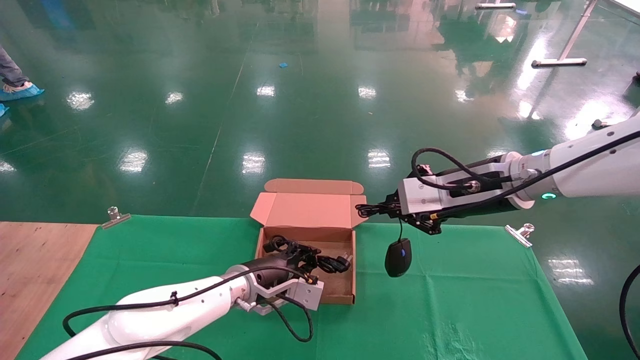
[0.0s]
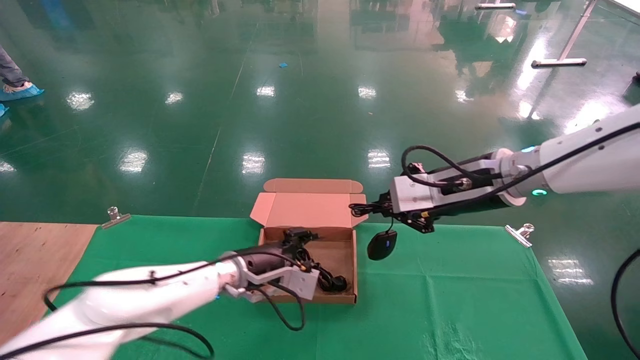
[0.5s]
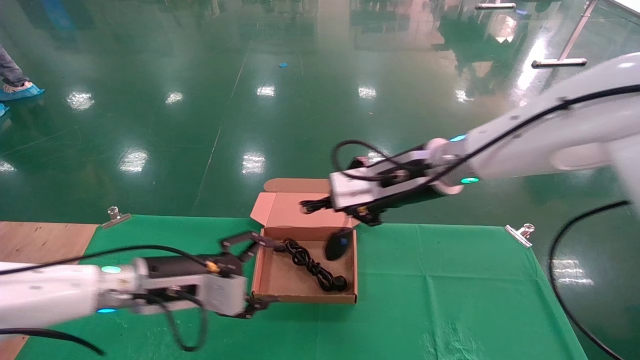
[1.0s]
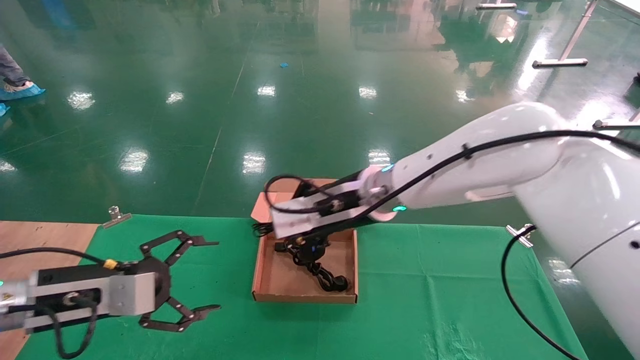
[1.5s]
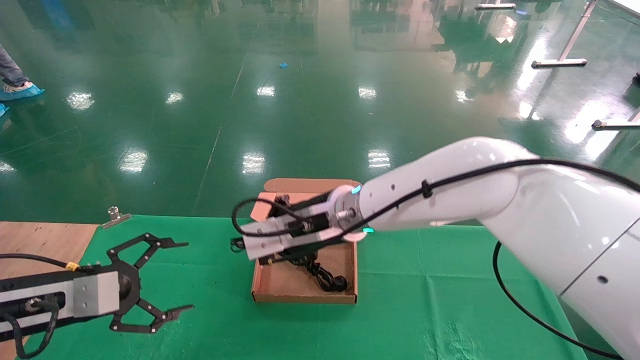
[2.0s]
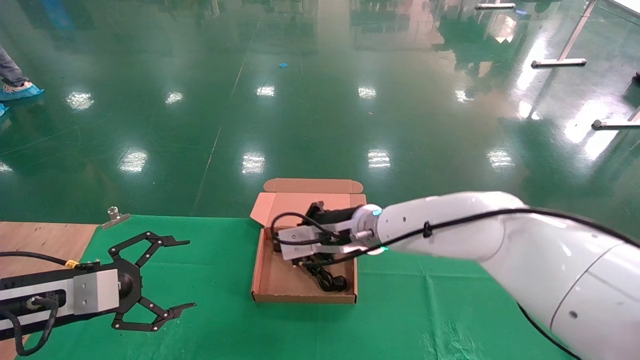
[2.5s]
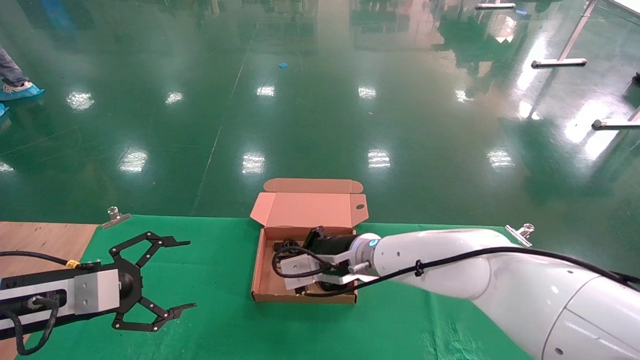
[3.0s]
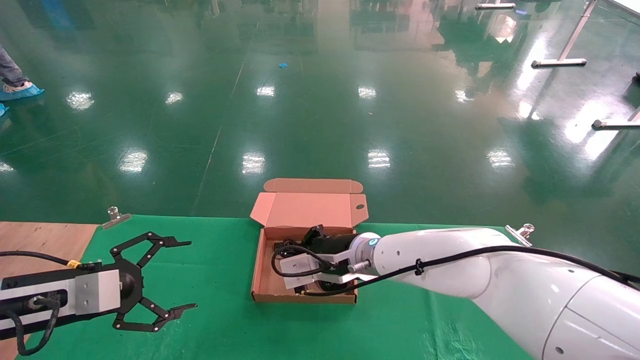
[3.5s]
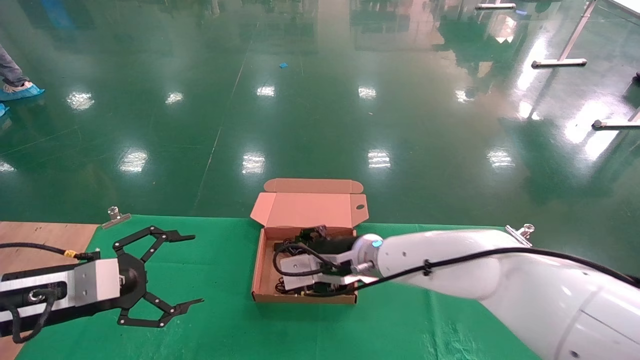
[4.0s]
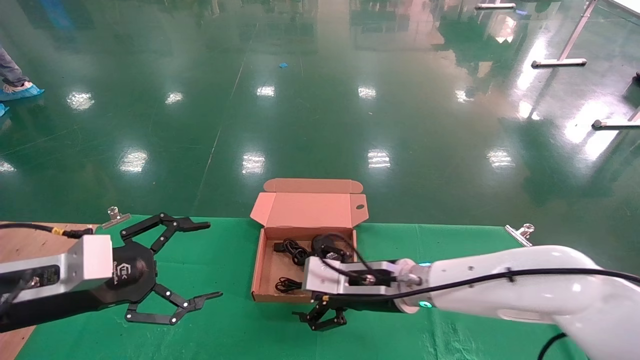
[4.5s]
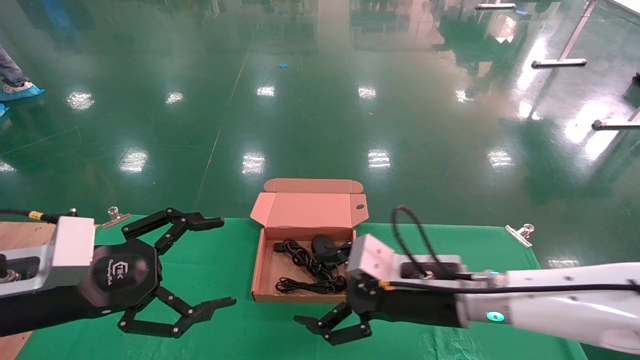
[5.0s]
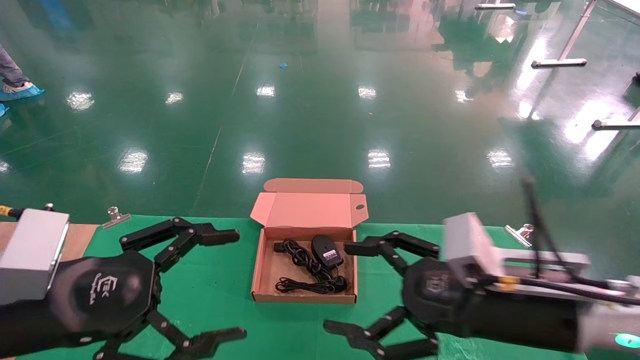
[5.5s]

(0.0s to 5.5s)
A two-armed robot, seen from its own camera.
Step, 0.0s - 3.0s: Place the mouse and power cord into the box.
0.0s - 2.0s: The right gripper heads to the left, covering roughly 20 cm; the left gripper travels to the left and backward by some 30 cm, and opens up.
2.0s - 3.5s: The right gripper goes about 10 cm downward.
3.5s - 5.5s: The left gripper heads backward, to the right and upward, covering roughly 15 cm. Meanwhile the right gripper is displaced backward and to the right by some 25 cm, and opens.

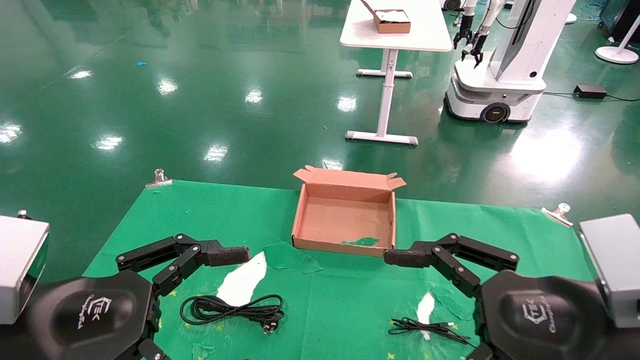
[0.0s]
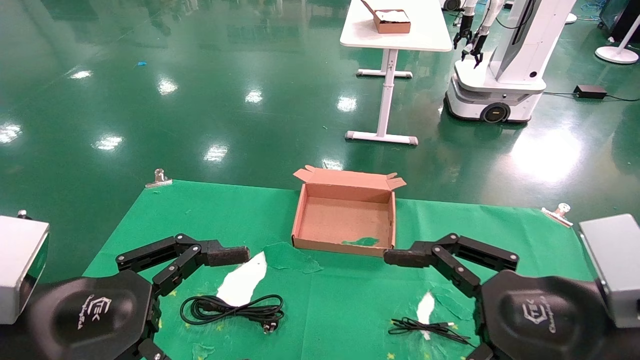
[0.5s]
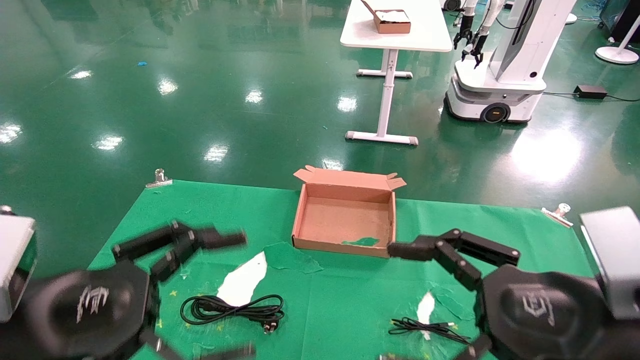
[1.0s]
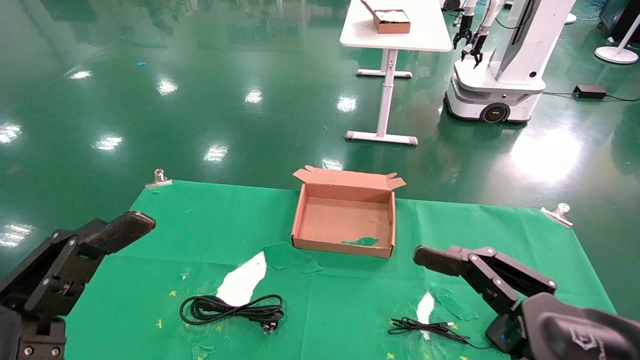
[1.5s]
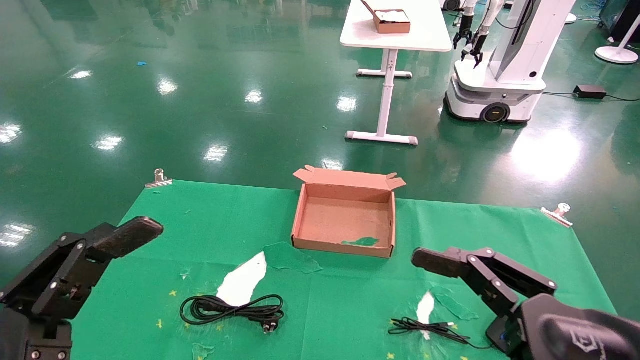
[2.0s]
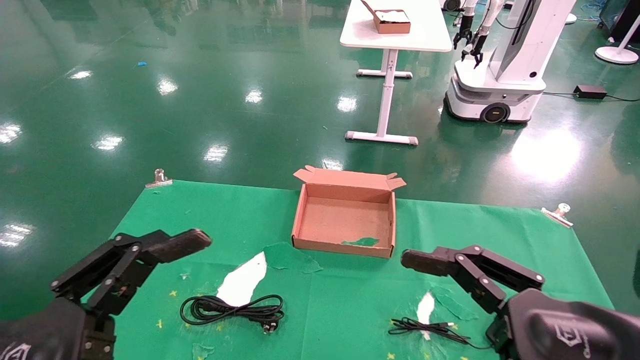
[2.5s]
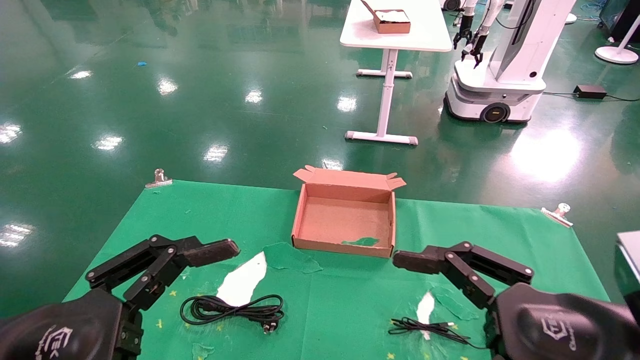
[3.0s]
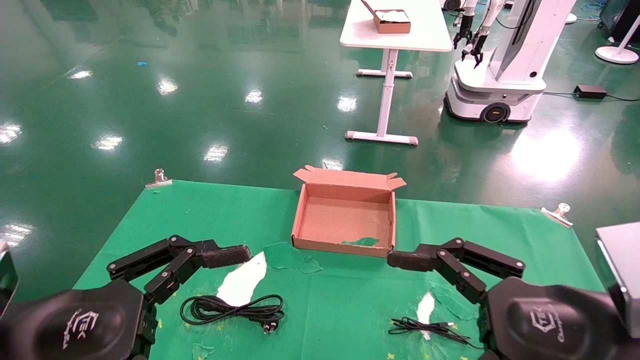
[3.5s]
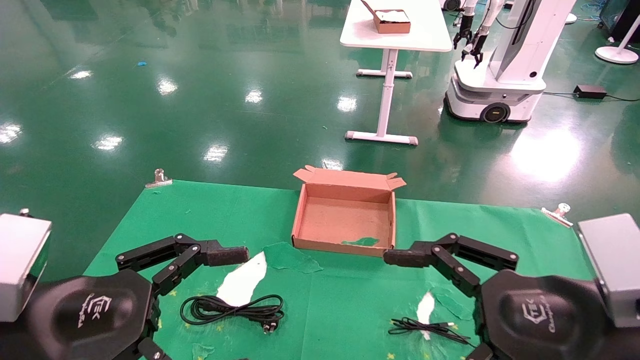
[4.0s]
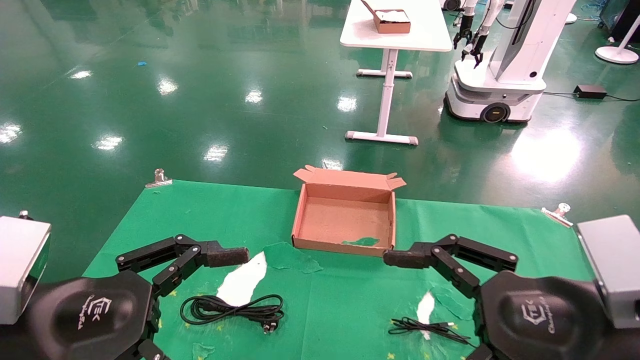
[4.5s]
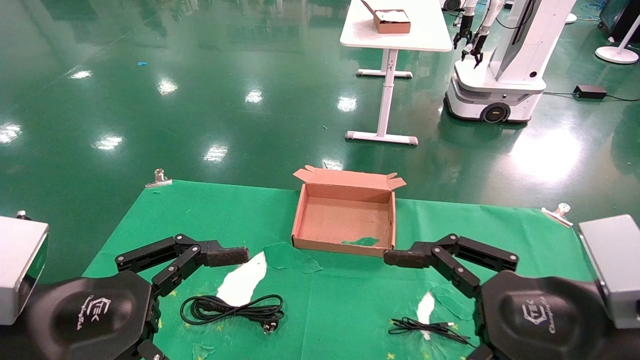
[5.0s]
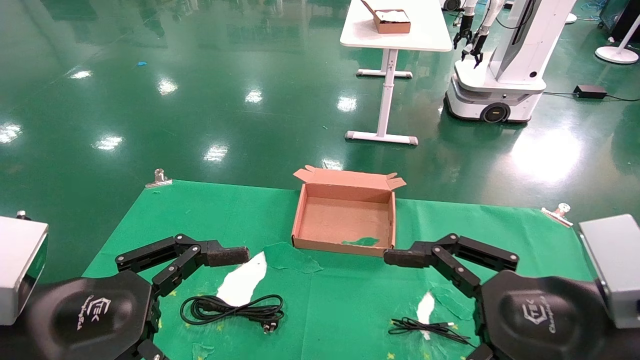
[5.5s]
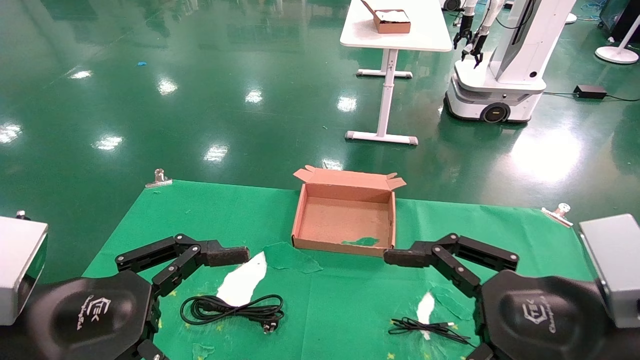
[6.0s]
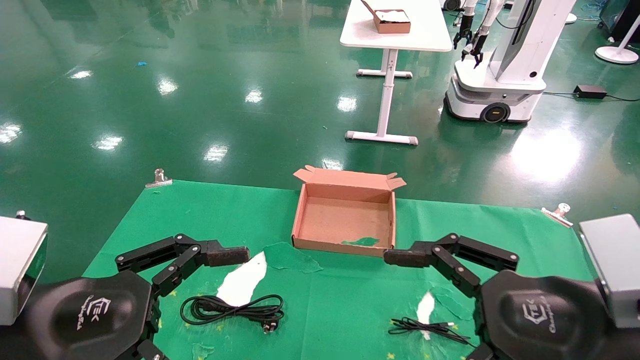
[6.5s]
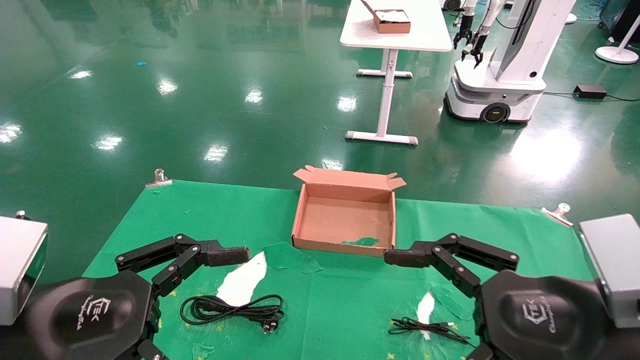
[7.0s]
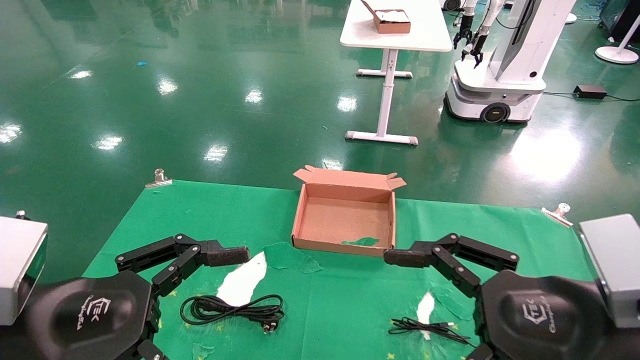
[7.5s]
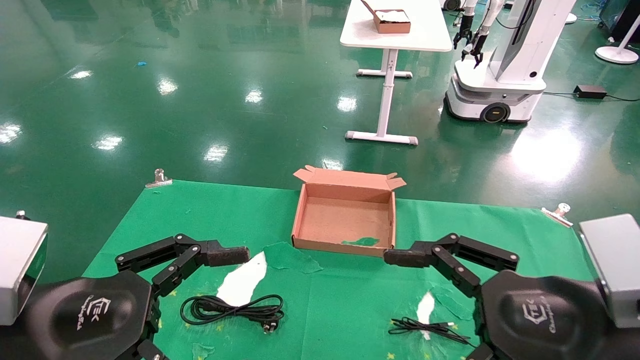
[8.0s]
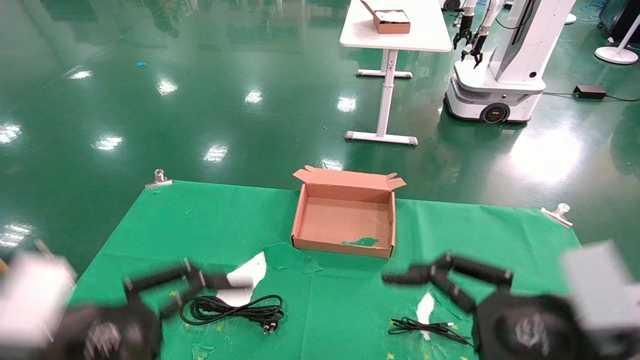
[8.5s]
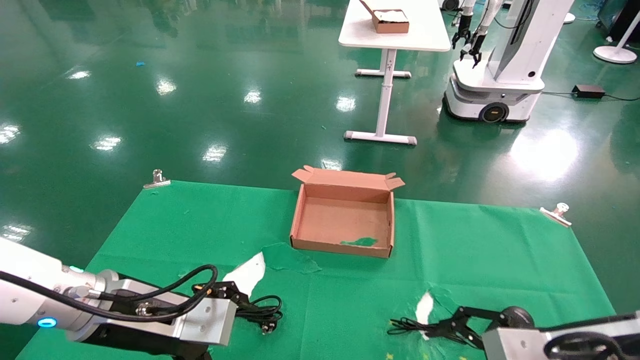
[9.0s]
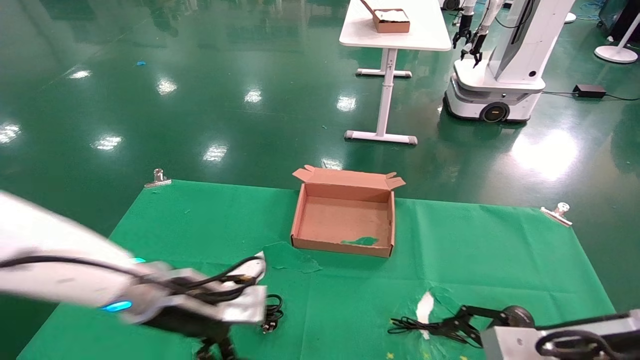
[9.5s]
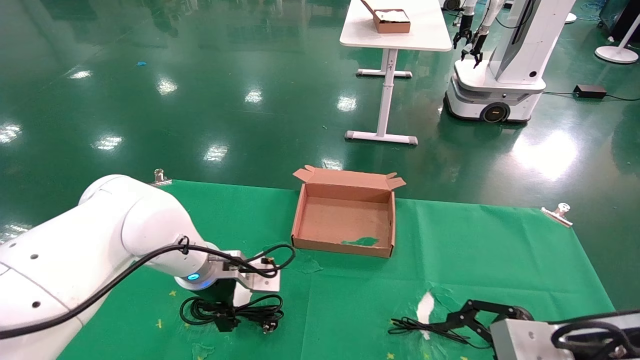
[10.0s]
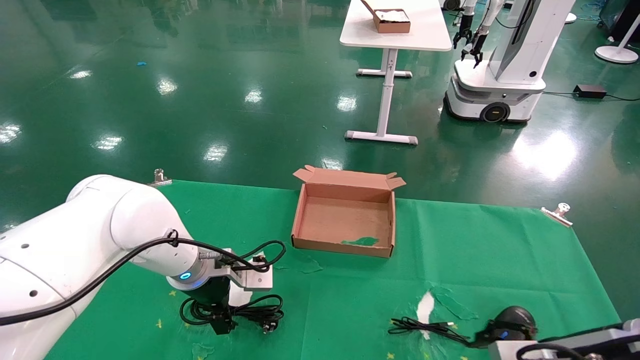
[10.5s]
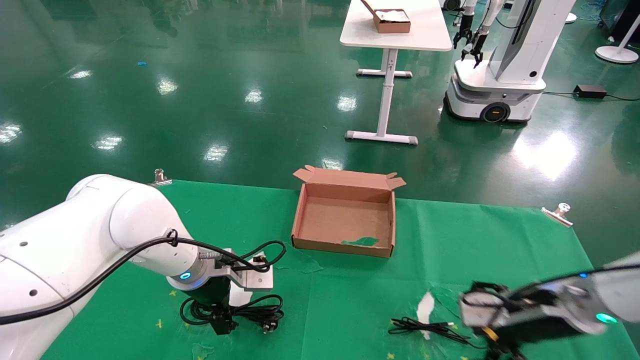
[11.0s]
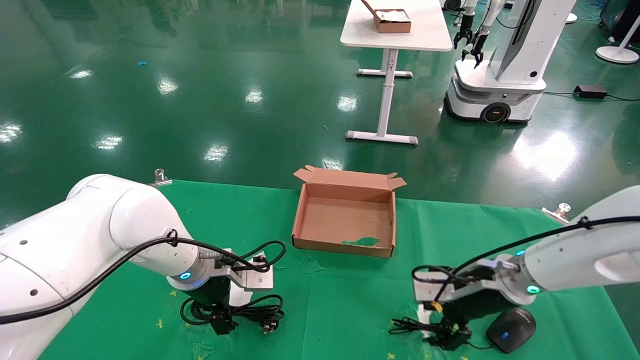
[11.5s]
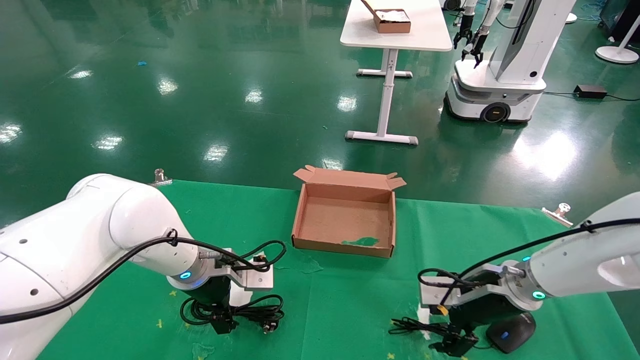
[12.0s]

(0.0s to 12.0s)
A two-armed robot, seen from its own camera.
0.0s - 2.0s: The left gripper changes place by some 5 cm.
2.0s - 4.0s: The left gripper changes place by roughly 5 cm.
4.0s - 8.0s: The two grippers keep their place.
8.0s - 10.0s: The right gripper moves some 5 cm, while the left gripper heads forward, covering roughly 25 cm.
10.0s - 12.0s: The right gripper moves forward, approximately 20 cm.

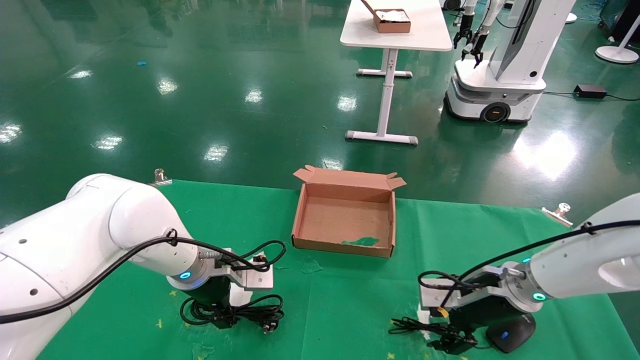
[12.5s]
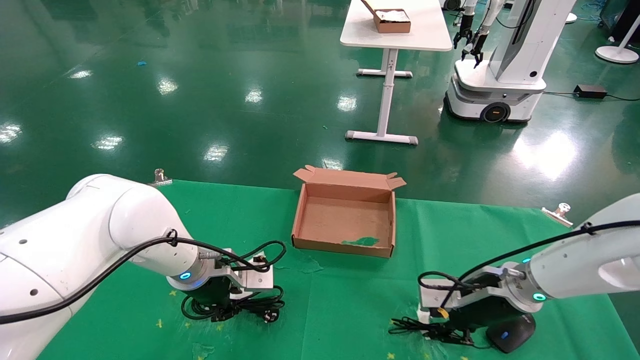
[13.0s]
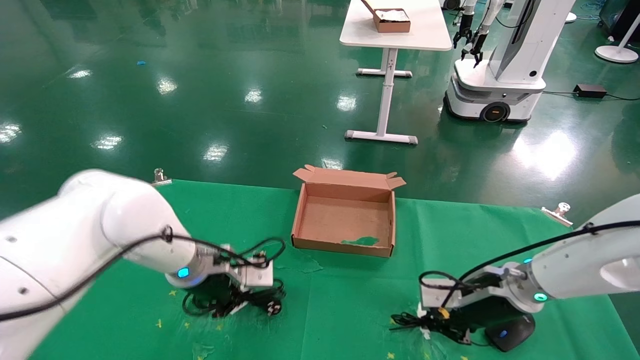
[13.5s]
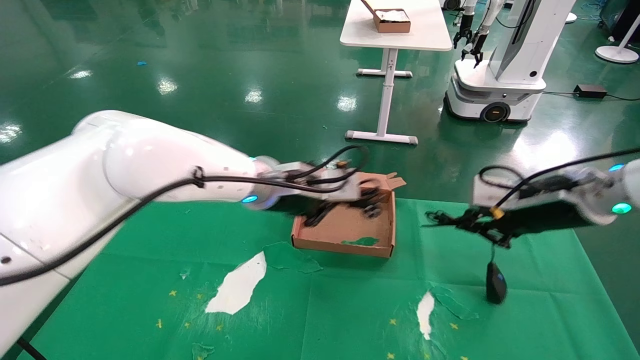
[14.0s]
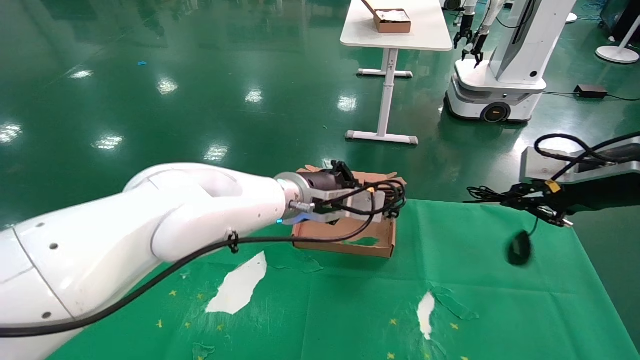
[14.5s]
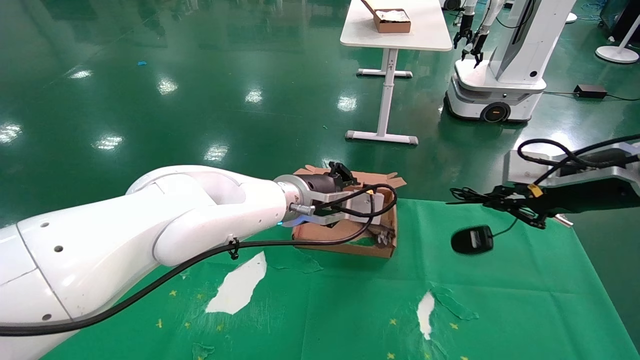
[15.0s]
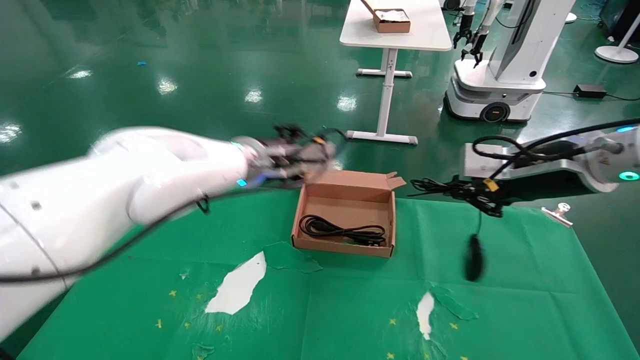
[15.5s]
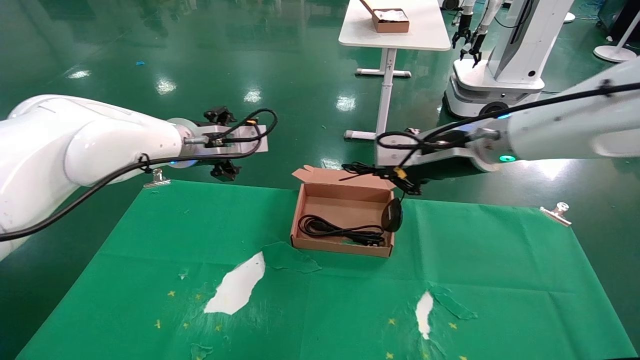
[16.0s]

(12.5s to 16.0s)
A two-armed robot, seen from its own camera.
12.5s - 14.5s: The right gripper shifts roughly 20 cm upward and to the right, and closes up. Meanwhile the left gripper is displaced to the right and upward by approximately 20 cm, and closes up.
14.5s - 16.0s: The left gripper is displaced to the left and upward by some 15 cm, and opens, while the right gripper shifts about 20 cm to the left.
